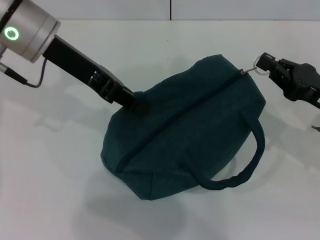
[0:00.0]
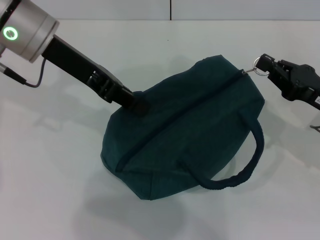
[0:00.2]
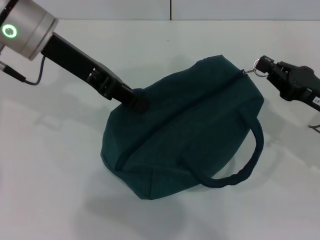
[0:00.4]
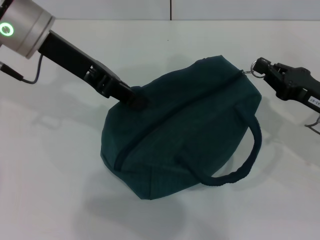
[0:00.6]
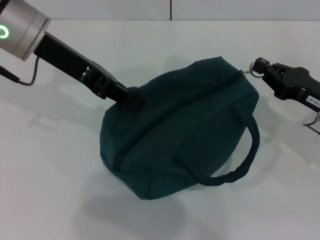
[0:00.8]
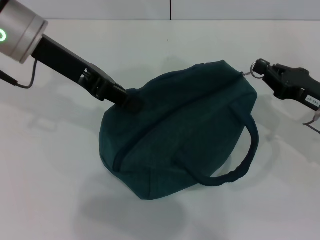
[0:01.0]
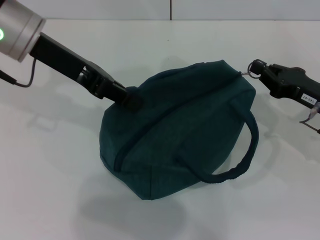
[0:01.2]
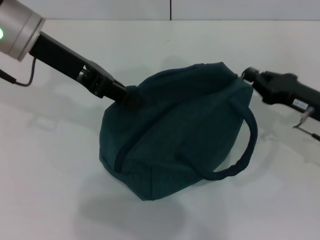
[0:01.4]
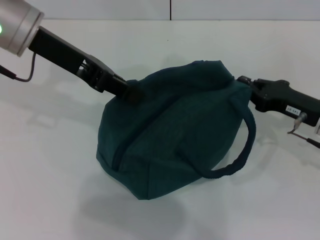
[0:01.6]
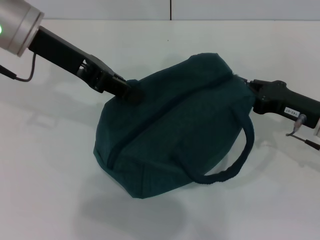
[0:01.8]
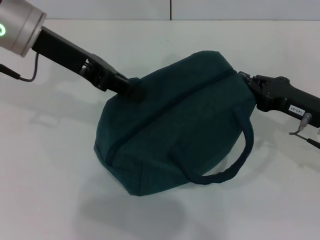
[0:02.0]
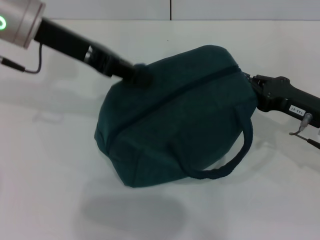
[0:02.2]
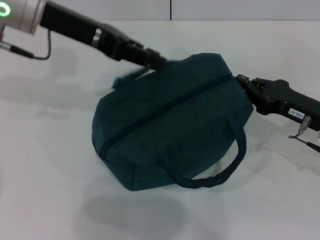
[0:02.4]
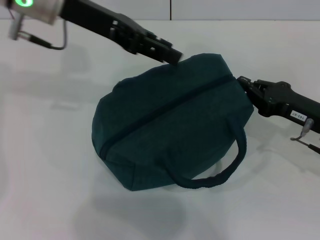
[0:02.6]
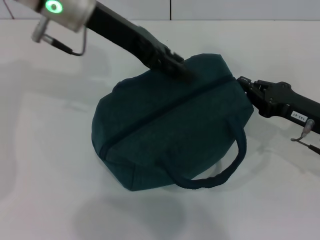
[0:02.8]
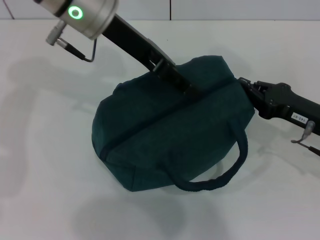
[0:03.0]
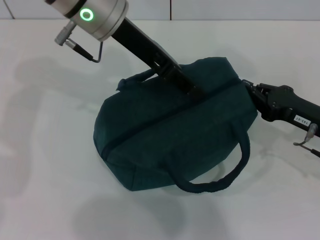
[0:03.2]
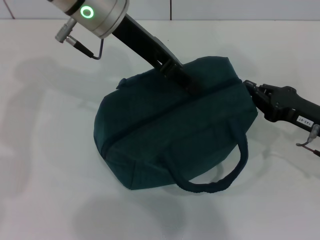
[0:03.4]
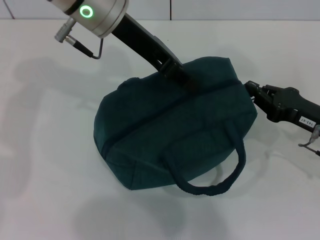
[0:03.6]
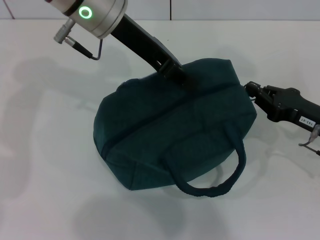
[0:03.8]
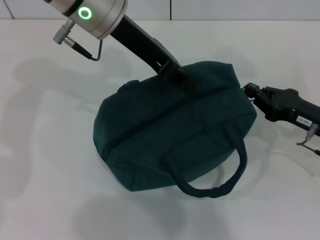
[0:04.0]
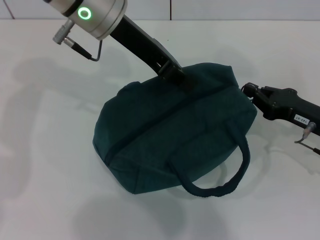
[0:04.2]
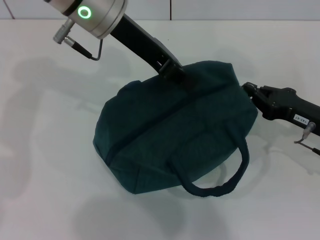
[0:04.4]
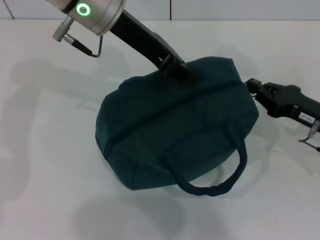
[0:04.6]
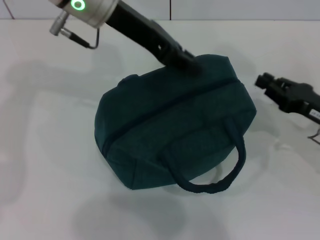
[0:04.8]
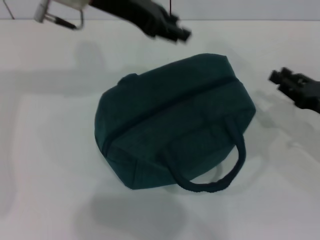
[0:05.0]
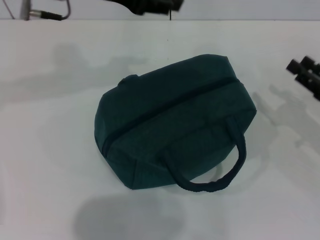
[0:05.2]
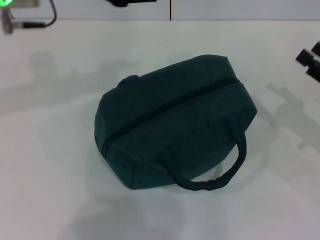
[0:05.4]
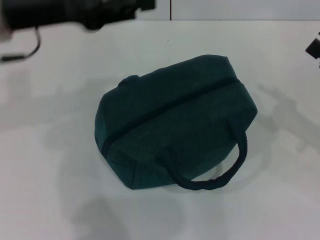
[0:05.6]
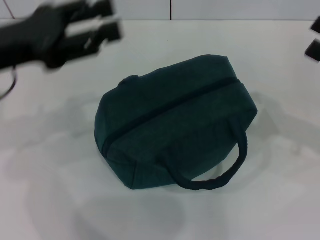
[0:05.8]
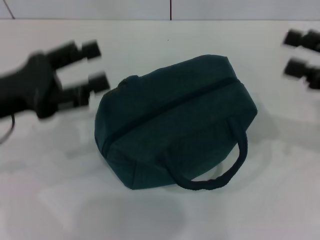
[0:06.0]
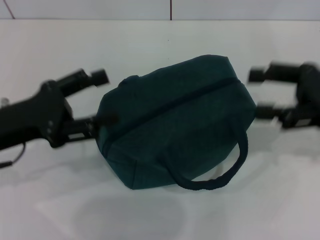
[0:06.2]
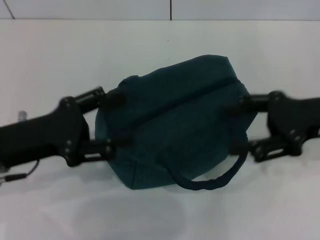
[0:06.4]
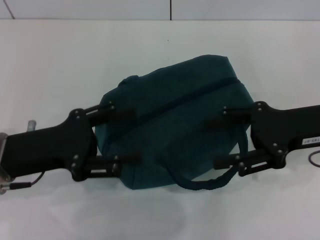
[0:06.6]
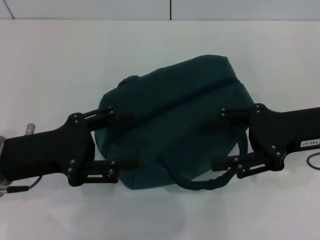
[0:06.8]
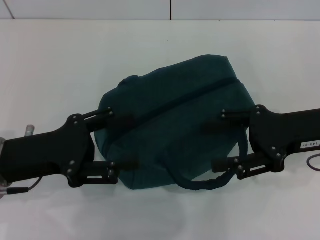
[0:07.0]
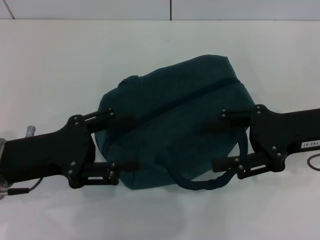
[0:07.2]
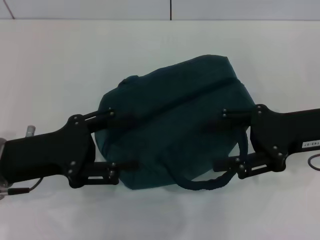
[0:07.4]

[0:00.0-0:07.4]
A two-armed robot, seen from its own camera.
Step, 0.0 to 4.6 s: Zip up the lunch bag with your right hand.
0.0 to 1.4 s: The grippers move only a little.
1.4 to 3.0 s: The left gripper heads to the right, covering approximately 10 cm, and opens.
3.0 to 4.4 s: The left gripper closes its fingers.
4.4 to 6.0 s: The left gripper goes approximately 25 cm to the left, backward and downward, and opens, while the right gripper shifts roughly 10 cm upward, and opens up.
6.0 to 7.4 s: The left gripper ends up some 5 cm from where it was, while the right gripper is displaced to the left by some 10 cm.

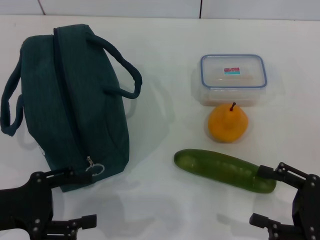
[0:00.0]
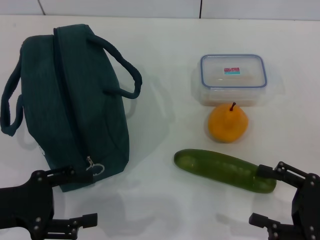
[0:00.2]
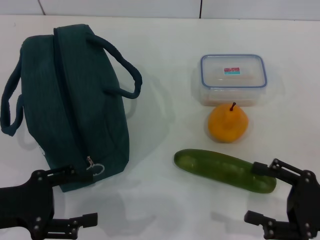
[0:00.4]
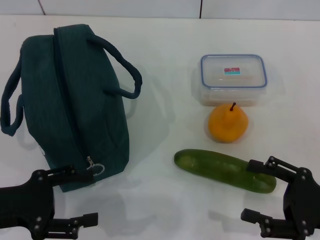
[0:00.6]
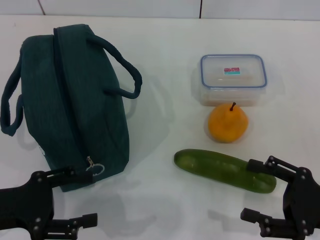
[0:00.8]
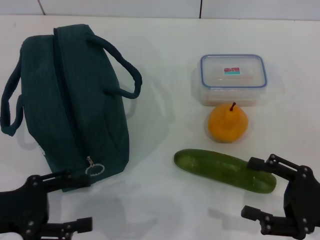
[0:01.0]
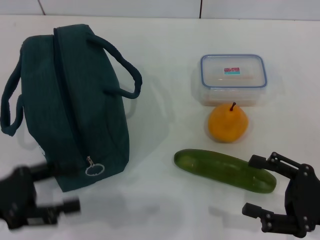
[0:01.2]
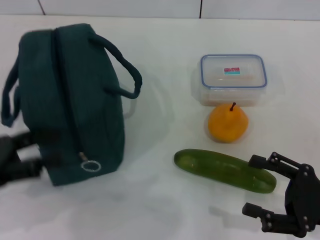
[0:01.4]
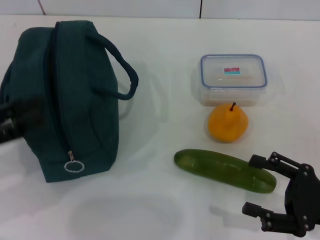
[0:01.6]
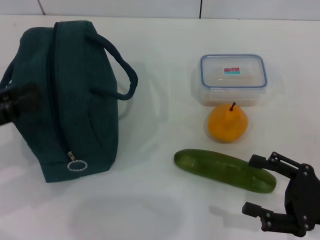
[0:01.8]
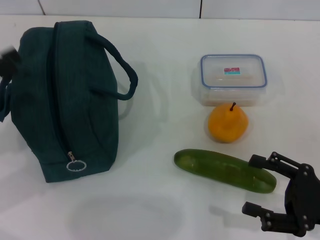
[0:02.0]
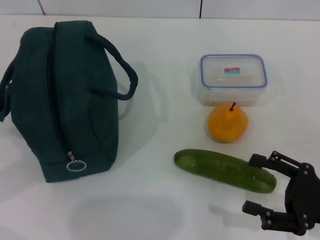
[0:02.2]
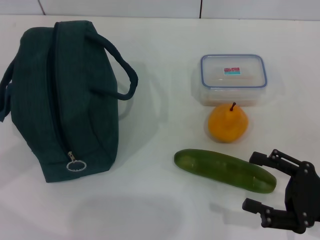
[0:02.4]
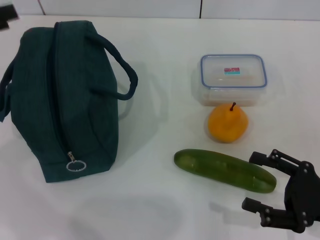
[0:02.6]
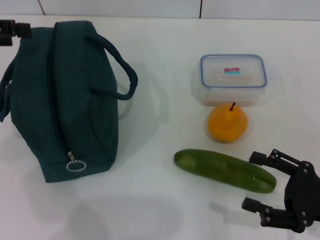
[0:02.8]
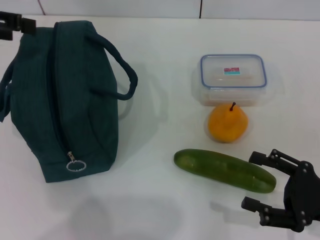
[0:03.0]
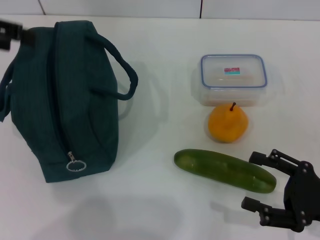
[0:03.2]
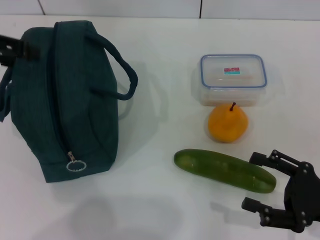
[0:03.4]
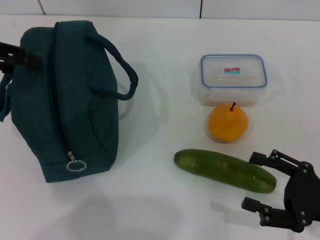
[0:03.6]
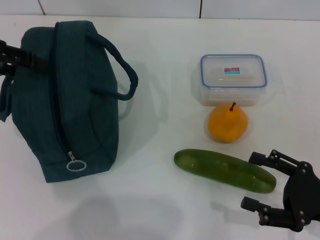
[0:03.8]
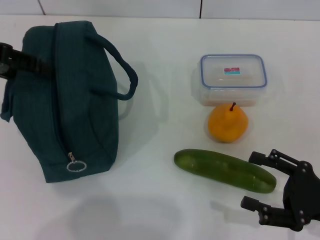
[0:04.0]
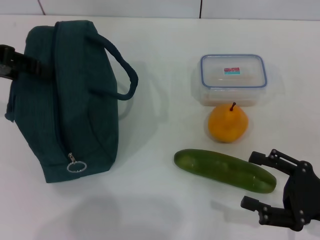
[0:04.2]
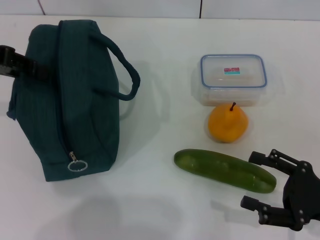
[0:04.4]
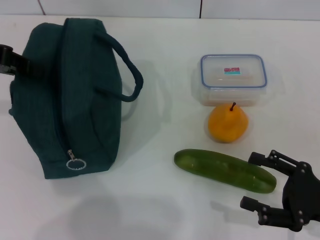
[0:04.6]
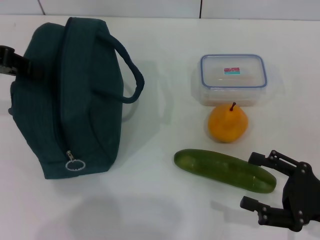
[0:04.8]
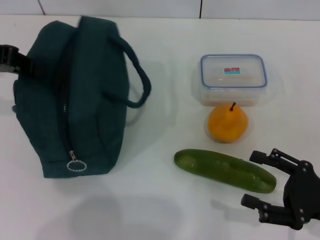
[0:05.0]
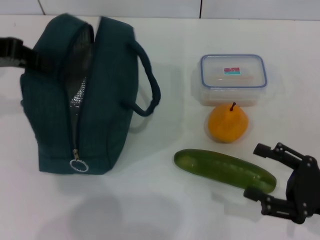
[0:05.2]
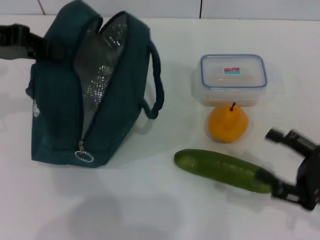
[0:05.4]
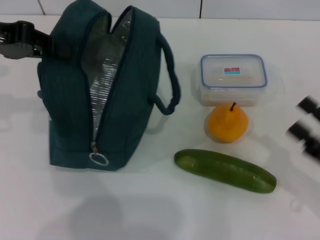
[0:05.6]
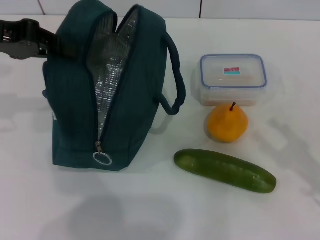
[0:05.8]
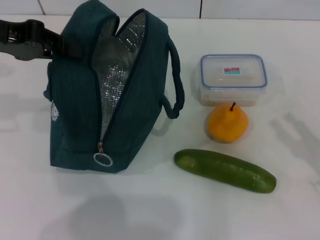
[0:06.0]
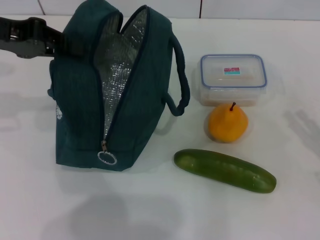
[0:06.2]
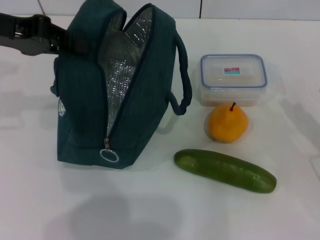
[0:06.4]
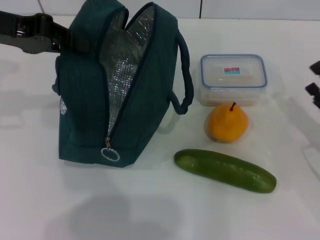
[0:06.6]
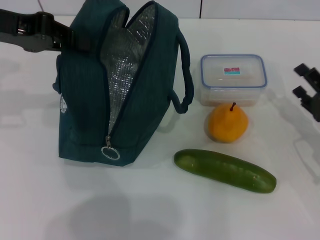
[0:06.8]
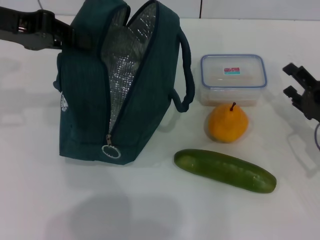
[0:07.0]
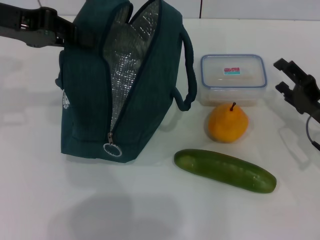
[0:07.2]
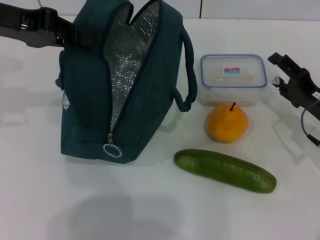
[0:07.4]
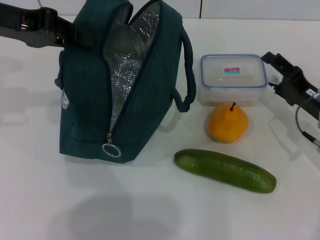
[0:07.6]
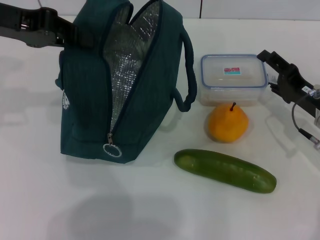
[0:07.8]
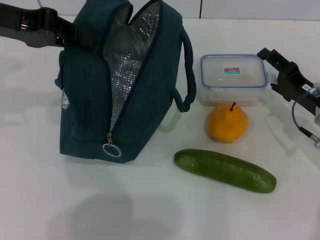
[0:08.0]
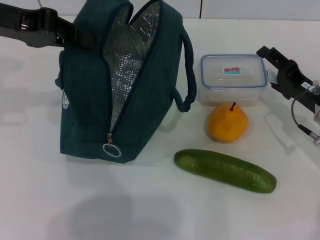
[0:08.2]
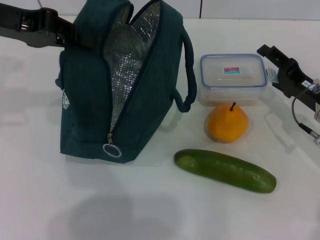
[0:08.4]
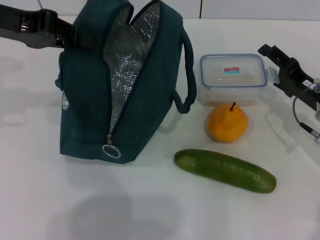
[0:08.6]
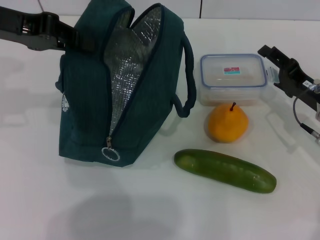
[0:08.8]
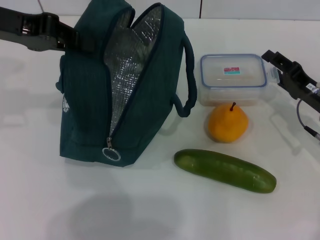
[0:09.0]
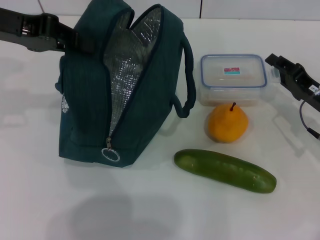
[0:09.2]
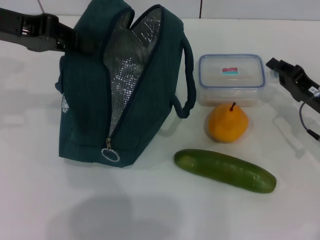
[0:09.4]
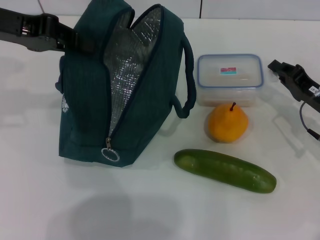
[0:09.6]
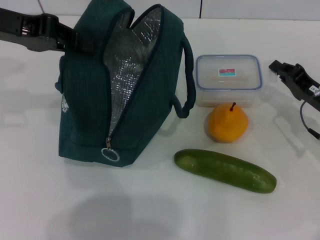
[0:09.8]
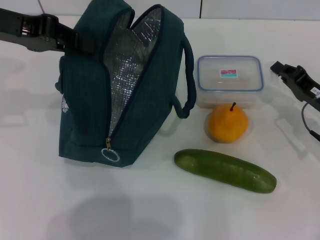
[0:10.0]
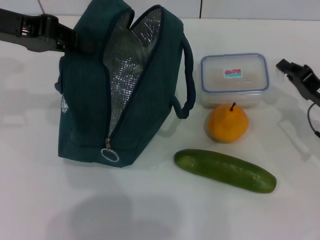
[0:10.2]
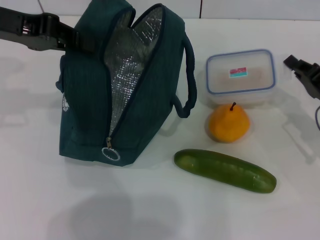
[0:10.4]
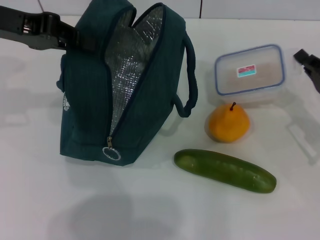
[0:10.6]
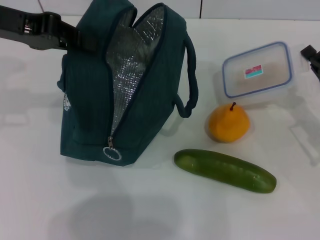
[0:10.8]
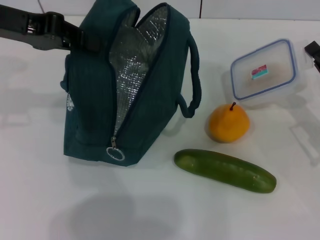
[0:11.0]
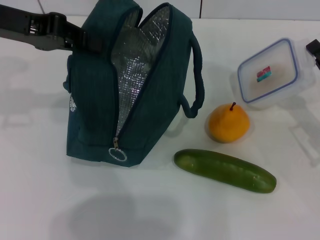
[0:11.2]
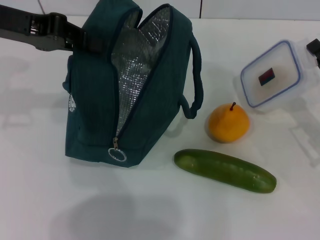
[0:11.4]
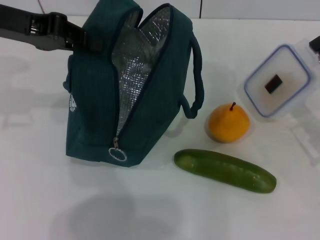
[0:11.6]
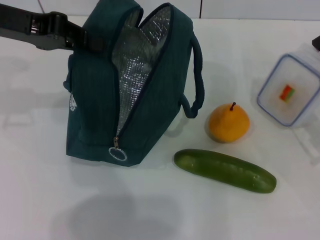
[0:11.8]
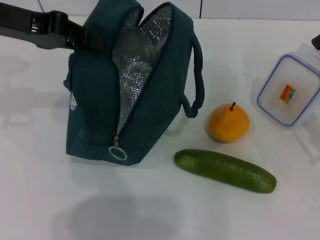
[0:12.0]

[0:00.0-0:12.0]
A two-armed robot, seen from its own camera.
Step, 0.0 to 5.4 s: Hold the lunch bag with your left hand.
0.0 to 1.6 s: The left gripper changes place by about 5 cm.
1.6 to 3.0 s: The left gripper shifts roughly 20 cm upward and forward.
3.0 to 4.4 s: The grippers make only small movements.
4.4 to 6.0 s: The left gripper closes up.
6.0 to 7.6 s: The right gripper shifts roughly 15 cm forward and to the left.
7.6 to 9.0 s: The grippers stay close to where they were, moving slightly.
9.0 to 10.4 s: The right gripper closes.
10.4 to 12.0 s: The grippers move only a little.

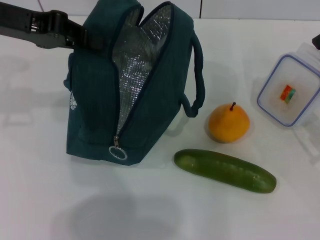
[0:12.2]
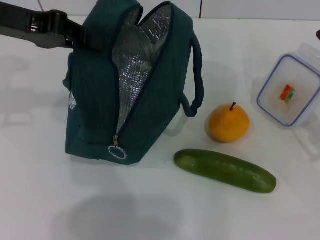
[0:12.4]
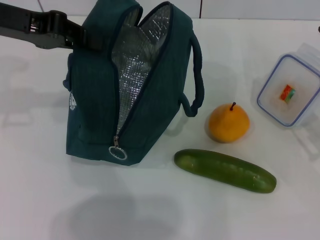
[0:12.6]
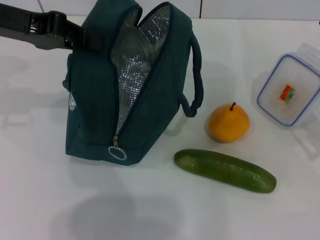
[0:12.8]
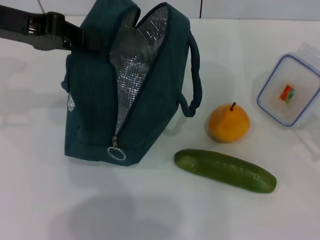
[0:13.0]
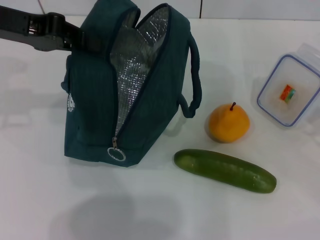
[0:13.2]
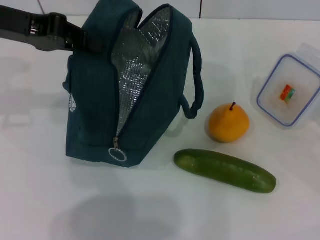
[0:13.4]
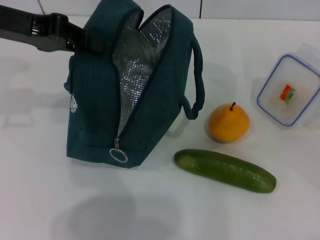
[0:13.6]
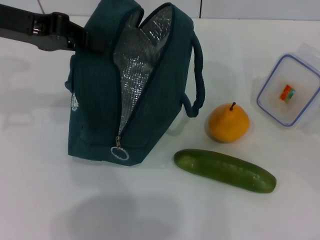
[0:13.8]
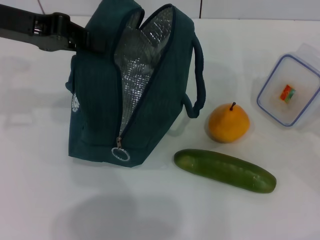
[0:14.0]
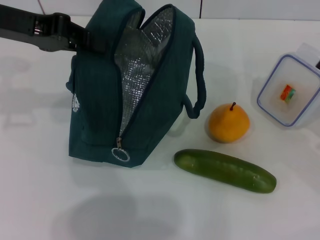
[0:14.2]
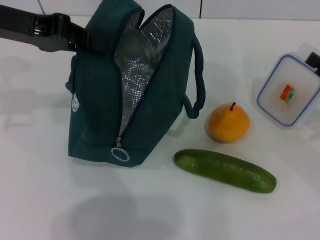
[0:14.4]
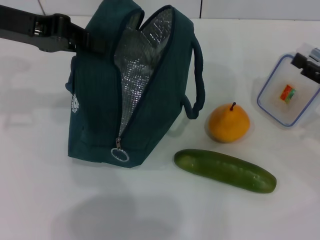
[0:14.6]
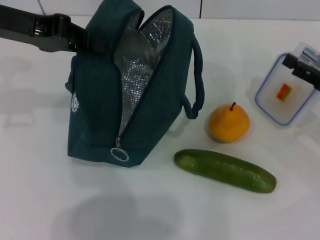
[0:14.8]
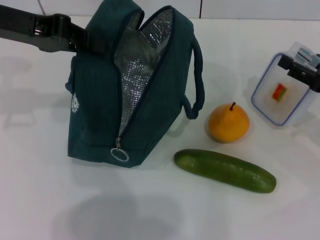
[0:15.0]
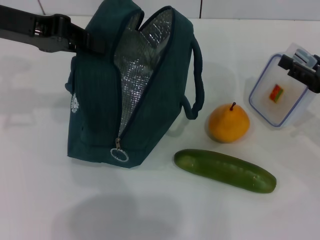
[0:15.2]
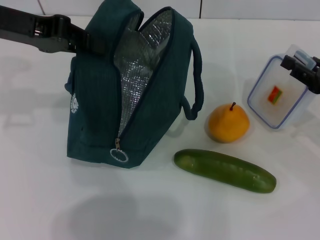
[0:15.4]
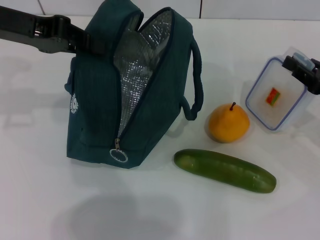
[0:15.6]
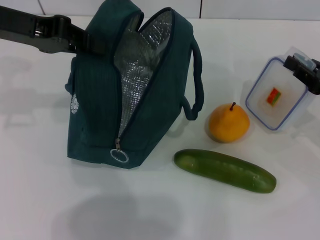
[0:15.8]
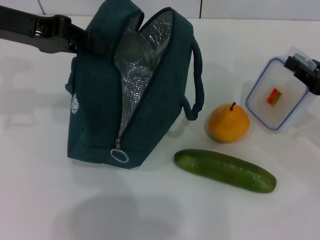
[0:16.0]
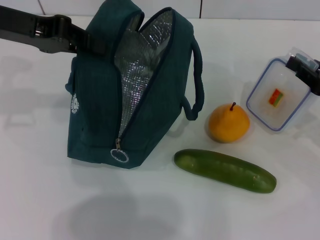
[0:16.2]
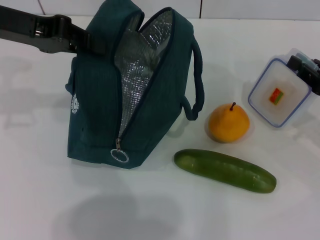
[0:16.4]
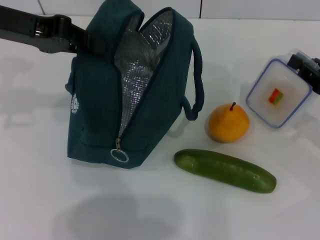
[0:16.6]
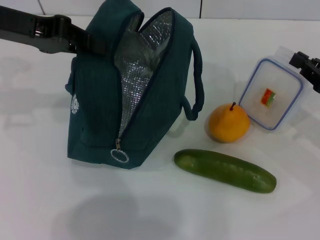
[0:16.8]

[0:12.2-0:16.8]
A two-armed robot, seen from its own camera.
Step, 12.2 to 16.4 s: Pick up the lunch box with your right hand.
12.2 to 13.8 s: The right gripper moves to the right, approximately 10 cm, and opens up.
13.8 to 15.2 s: The right gripper moves to the left, about 5 cm.
15.2 to 16.8 s: The right gripper closes its fingers.
